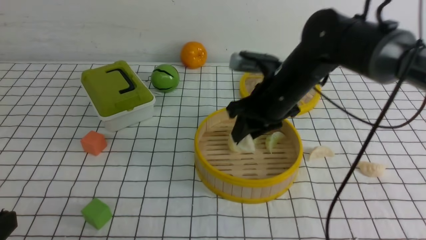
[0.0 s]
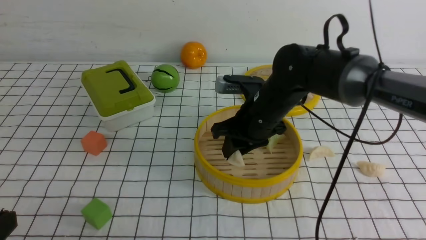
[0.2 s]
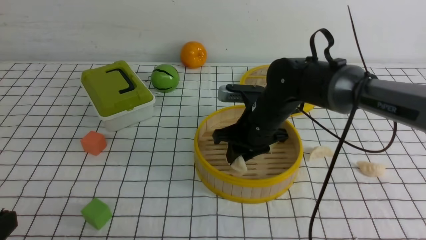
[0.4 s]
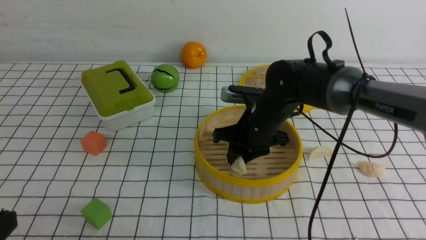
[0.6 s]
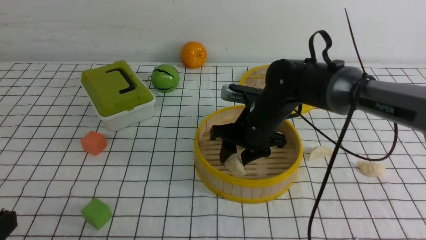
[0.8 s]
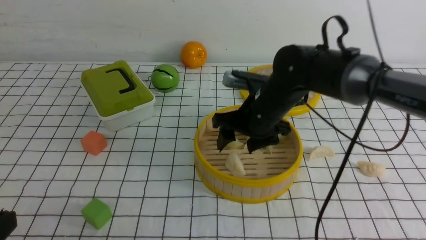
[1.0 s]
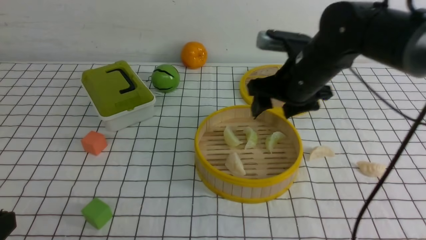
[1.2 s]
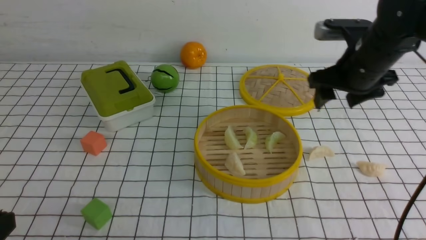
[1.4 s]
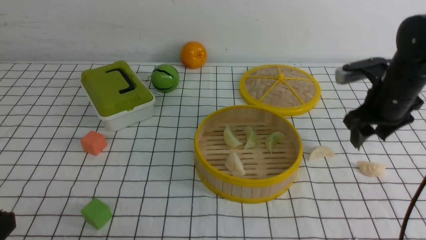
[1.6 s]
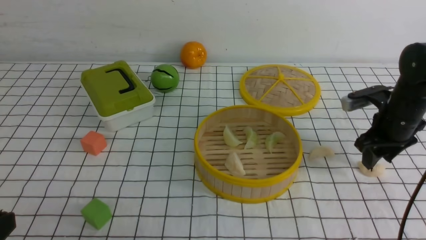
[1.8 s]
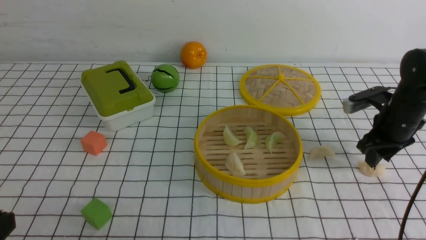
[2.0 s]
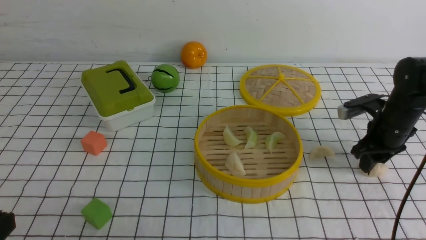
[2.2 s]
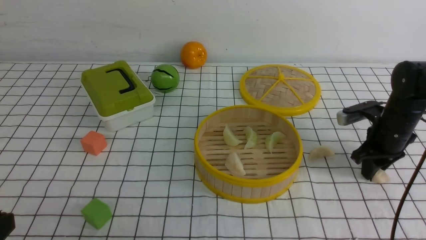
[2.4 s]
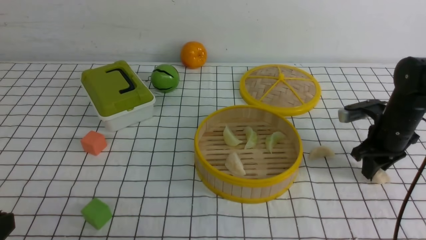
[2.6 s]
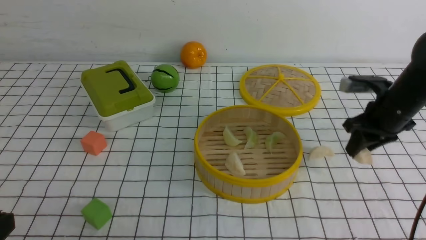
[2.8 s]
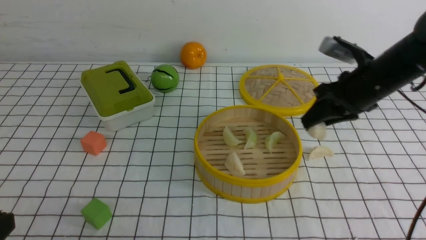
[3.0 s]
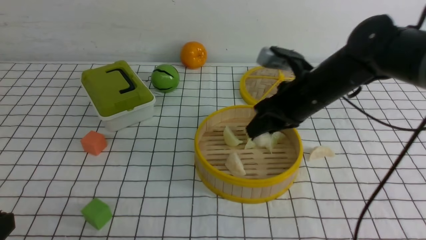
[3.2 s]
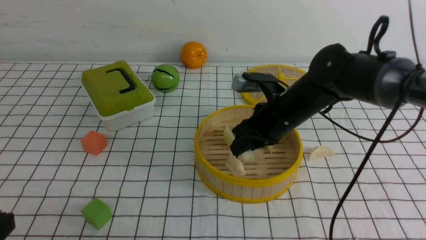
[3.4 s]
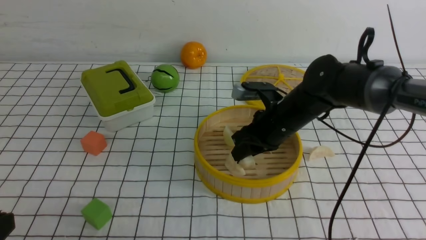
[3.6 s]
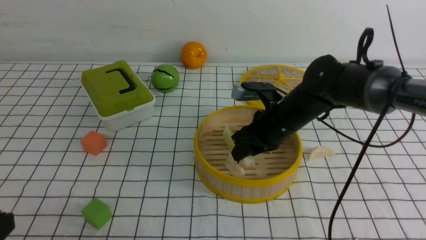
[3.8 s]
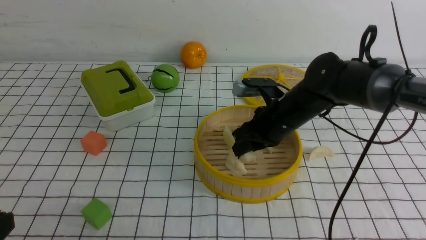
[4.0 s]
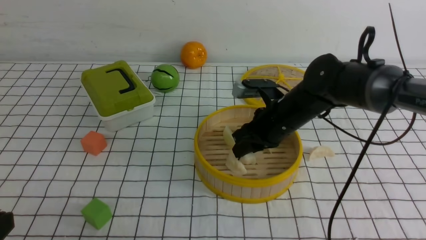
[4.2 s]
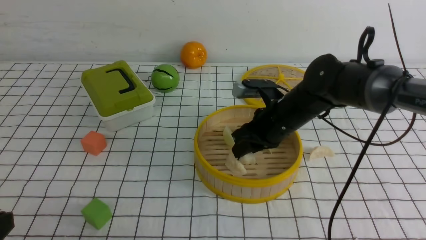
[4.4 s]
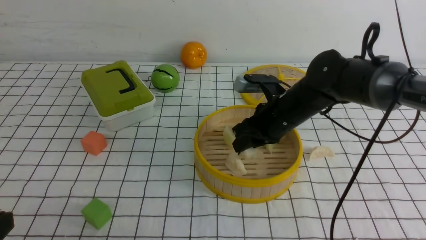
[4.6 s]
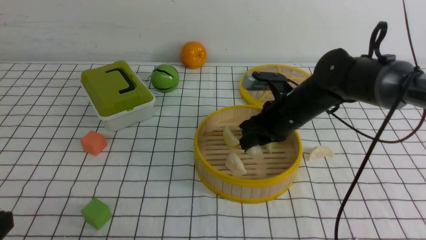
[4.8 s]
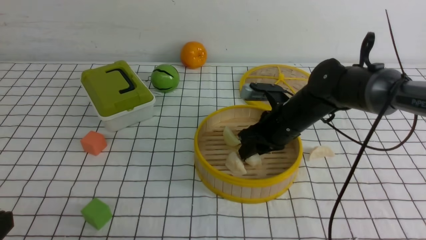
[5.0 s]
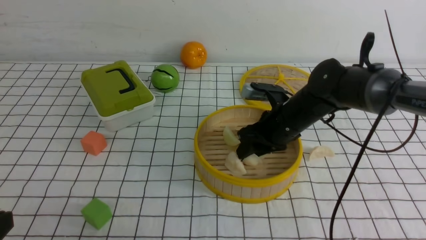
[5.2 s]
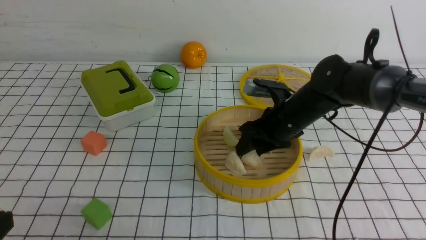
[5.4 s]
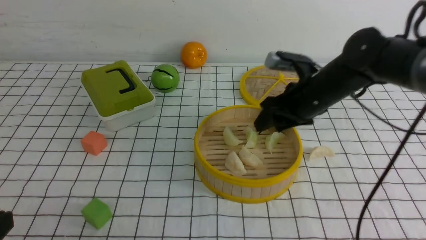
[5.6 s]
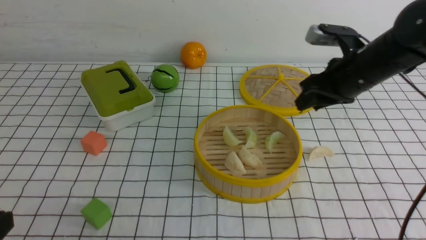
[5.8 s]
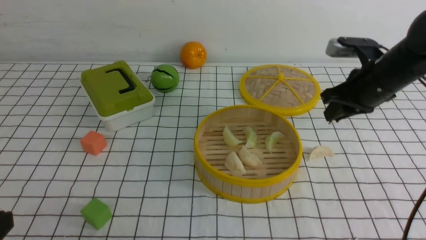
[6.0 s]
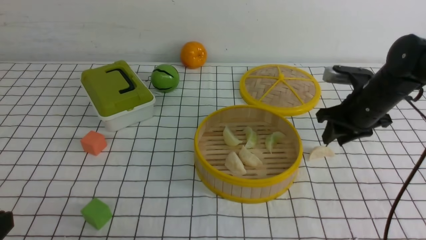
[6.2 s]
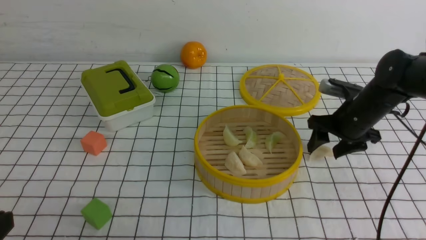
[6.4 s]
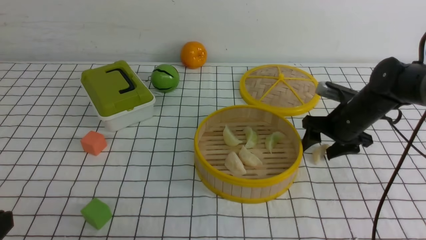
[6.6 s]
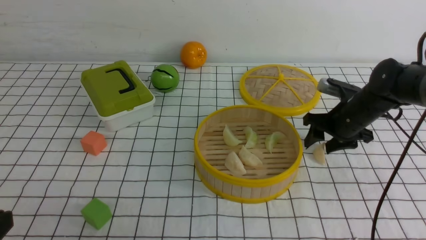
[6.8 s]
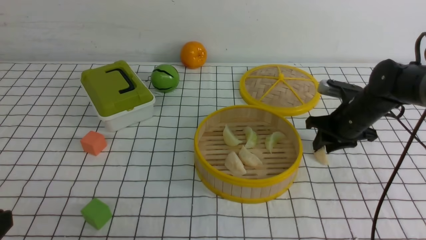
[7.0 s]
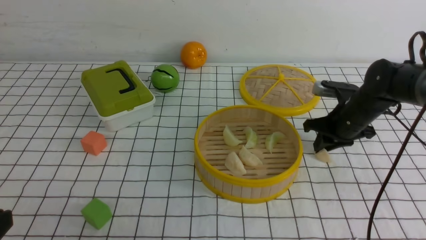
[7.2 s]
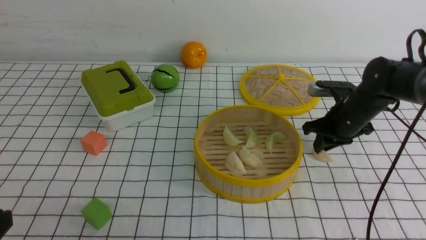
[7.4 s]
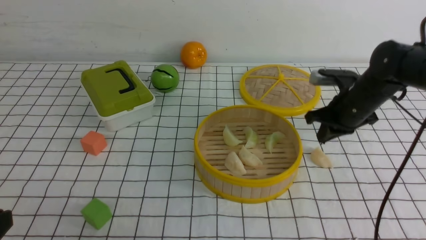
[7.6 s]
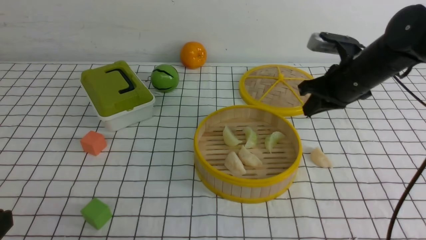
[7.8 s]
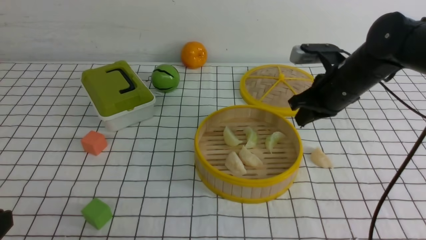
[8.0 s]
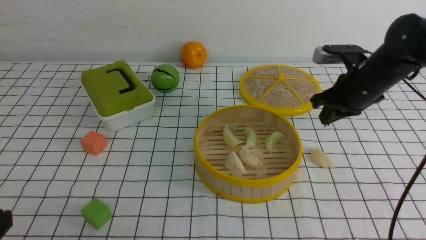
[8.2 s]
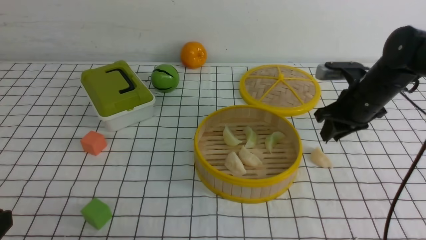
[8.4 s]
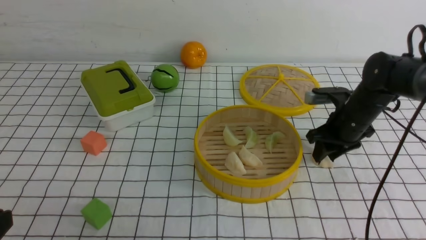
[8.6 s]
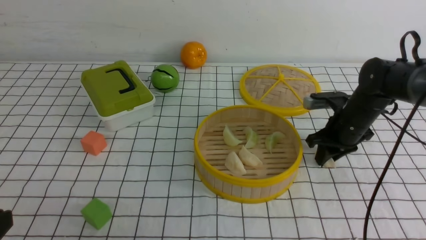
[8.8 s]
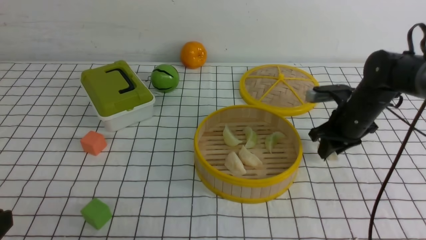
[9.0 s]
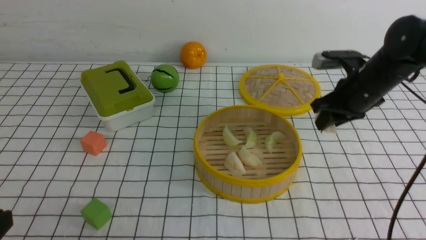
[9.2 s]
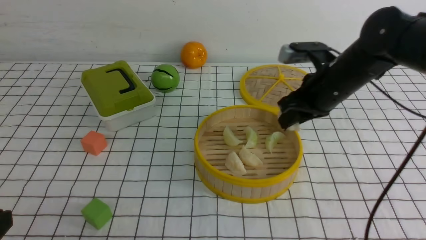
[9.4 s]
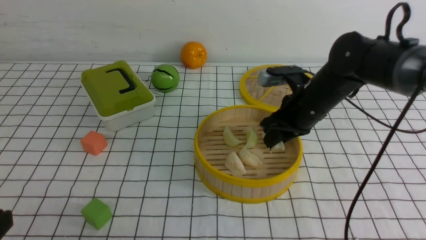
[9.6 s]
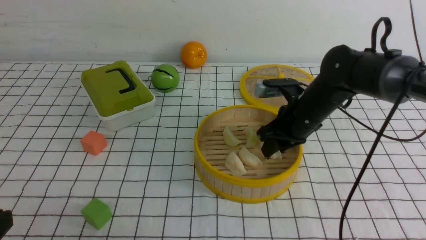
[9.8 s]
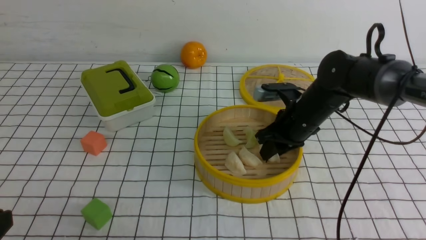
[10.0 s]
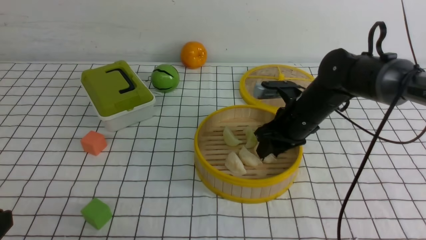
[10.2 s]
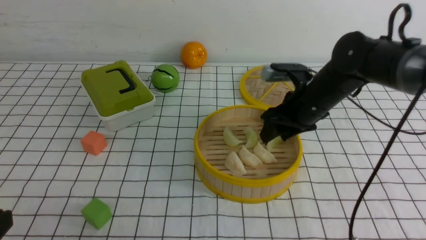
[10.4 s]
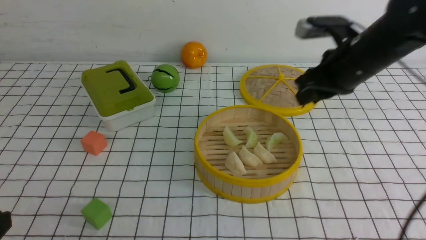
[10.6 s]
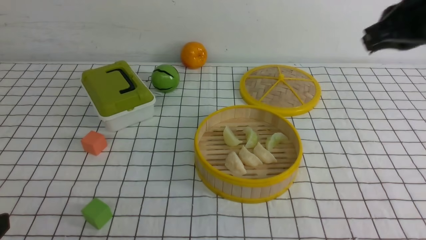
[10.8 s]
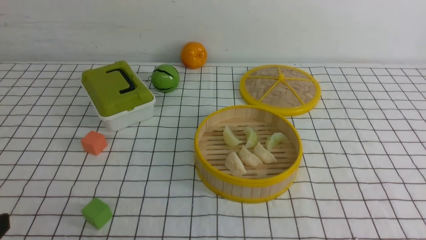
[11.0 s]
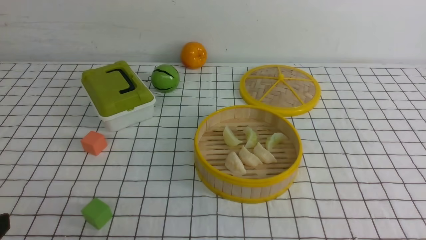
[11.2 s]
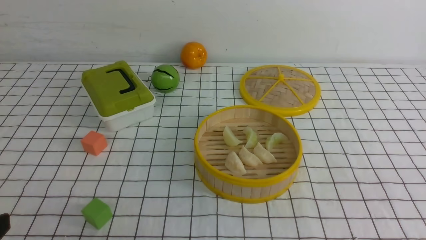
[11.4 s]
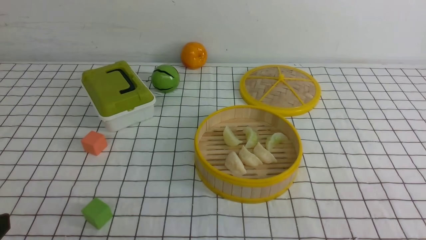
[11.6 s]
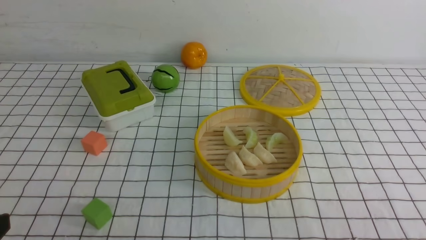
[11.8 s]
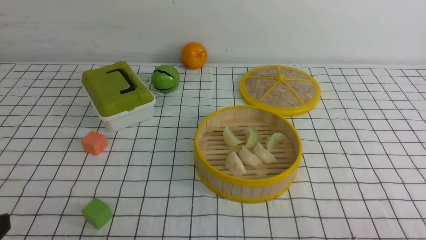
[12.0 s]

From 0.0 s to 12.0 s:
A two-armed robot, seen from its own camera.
Task of the whole recording: put the dumplings into the steamer on the table with the white tablecloth.
Step, from 0.0 s to 0.8 s: use the right arm to put the dumpling into the steamer.
Step, from 1.2 s to 2.8 s: use the right arm to grab a dumpling.
Step, from 3.0 s to 5.8 s: use the right arm to put the dumpling into the steamer.
Step, from 6.0 s to 9.0 s: use the right arm to grab a dumpling.
Step, from 9.2 s to 10.8 s: use the right arm to put the dumpling into the steamer.
From 0.0 s to 1.6 s: The right gripper moves to the right, some 15 cm, and opens.
From 1.6 s to 3.0 s: The right gripper heads to the left, covering some 5 cm, and closes up.
From 3.0 s to 4.4 s: The right gripper heads to the left and downward, covering about 10 cm.
From 4.4 s to 6.0 s: The right gripper moves to the right, roughly 15 cm.
From 6.0 s to 7.6 s: The right gripper closes its fingers.
From 7.6 s to 9.0 s: The grippers stay close to where they were, moving slightly.
From 9.0 s to 10.4 s: The right gripper moves to the left and upward, approximately 10 cm.
From 10.4 s to 12.0 s: The right gripper travels backward by some 35 cm, and closes up.

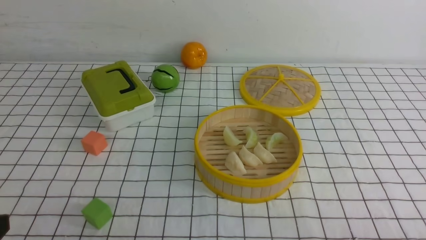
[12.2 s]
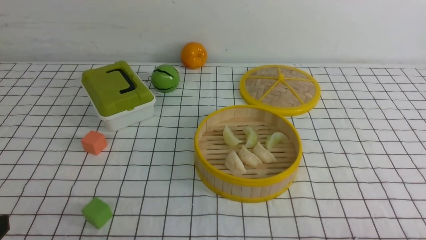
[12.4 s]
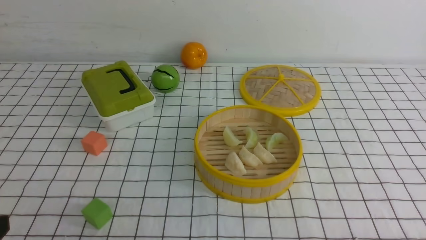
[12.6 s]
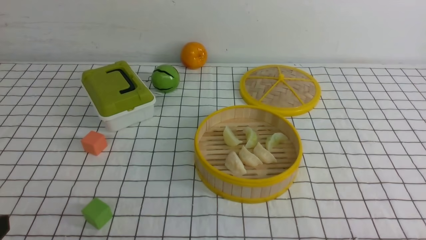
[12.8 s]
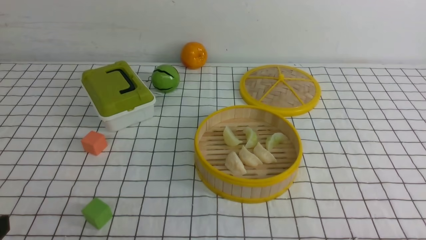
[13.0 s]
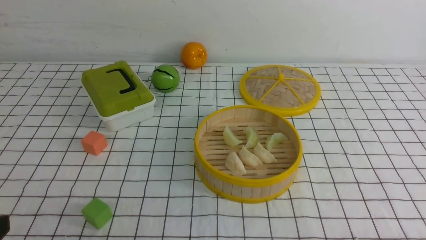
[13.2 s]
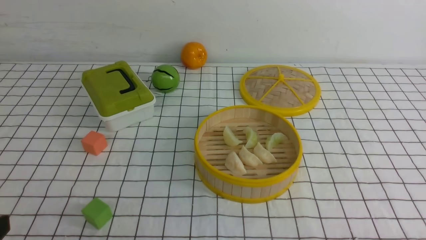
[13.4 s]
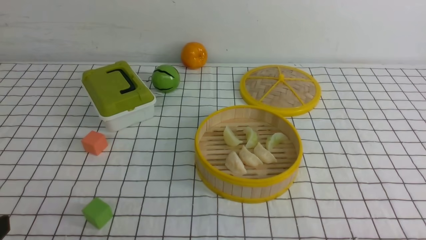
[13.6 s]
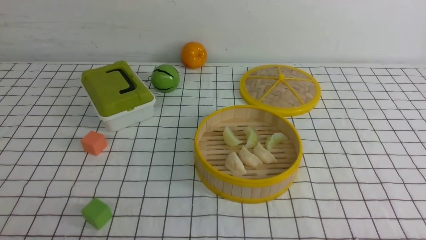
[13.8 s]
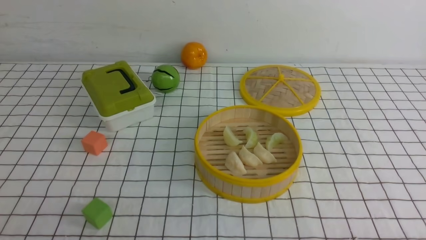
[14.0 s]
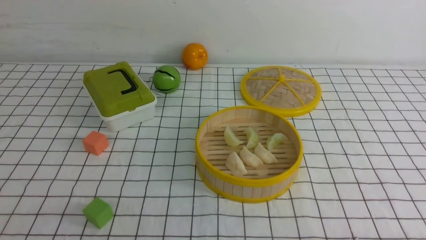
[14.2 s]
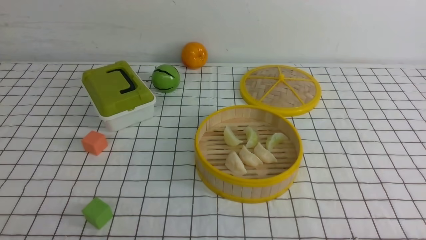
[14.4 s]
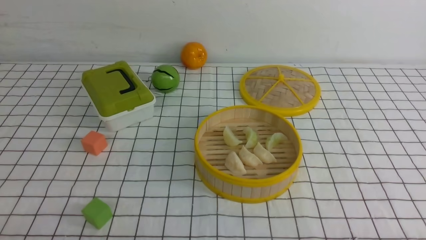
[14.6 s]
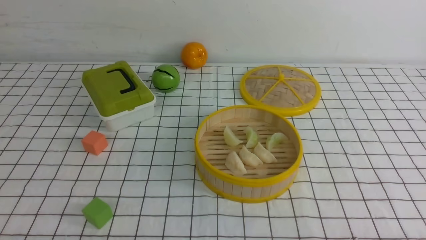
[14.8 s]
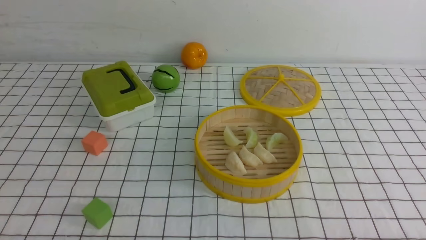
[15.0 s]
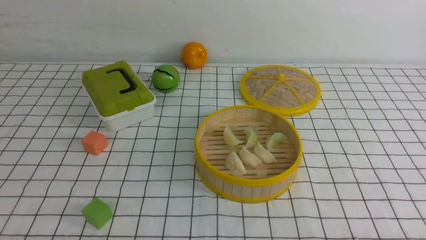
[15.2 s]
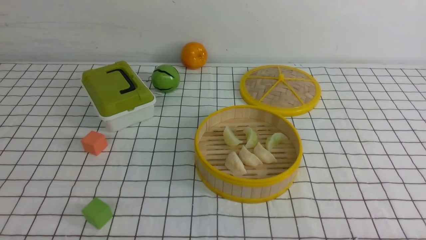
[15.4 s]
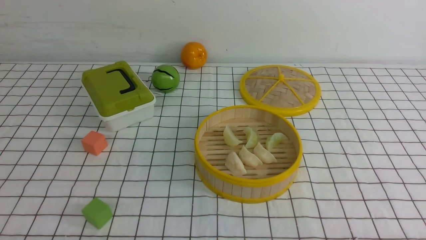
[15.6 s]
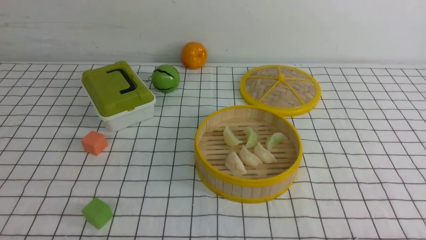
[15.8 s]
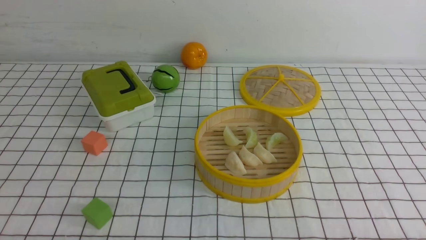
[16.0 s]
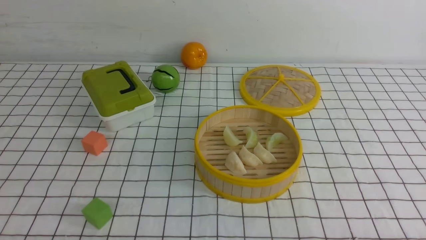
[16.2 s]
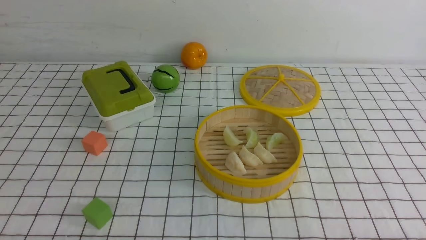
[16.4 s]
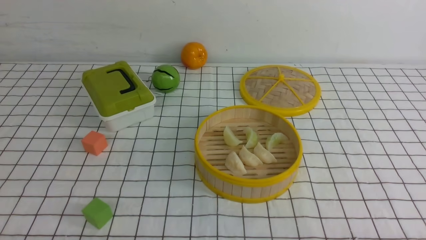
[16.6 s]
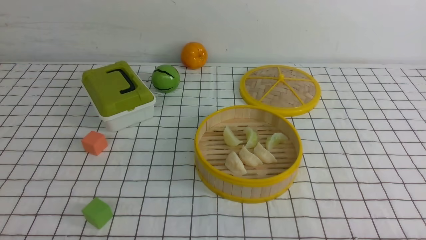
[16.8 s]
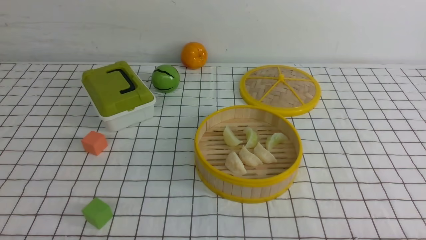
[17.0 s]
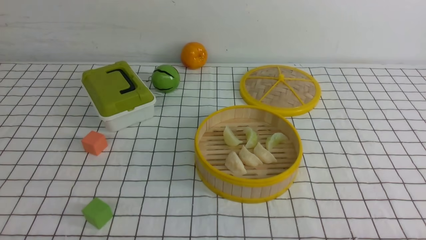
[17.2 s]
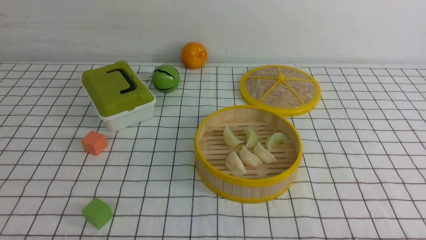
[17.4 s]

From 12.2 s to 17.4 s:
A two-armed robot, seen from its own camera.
Task of the whole recording: put the dumplings into the steamer on the table with the white tablecloth.
From 15.6 s to 17.4 s: Neither gripper changes place.
